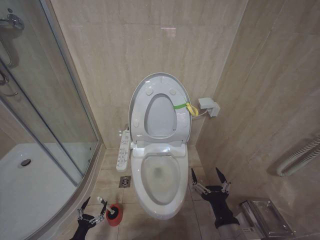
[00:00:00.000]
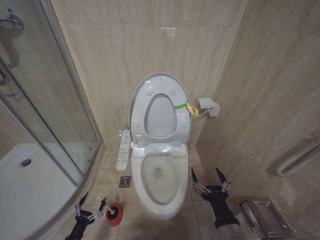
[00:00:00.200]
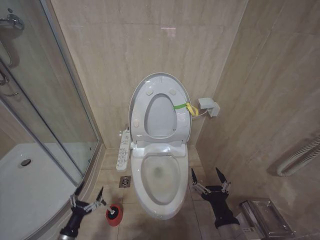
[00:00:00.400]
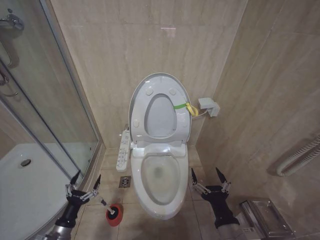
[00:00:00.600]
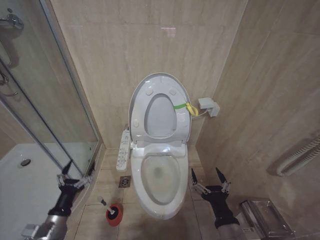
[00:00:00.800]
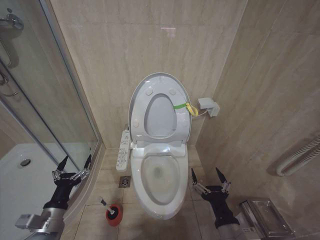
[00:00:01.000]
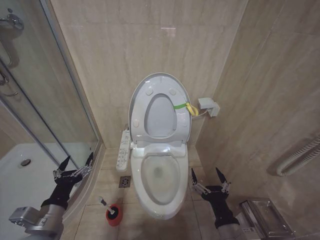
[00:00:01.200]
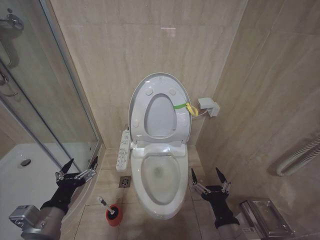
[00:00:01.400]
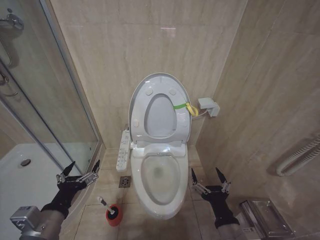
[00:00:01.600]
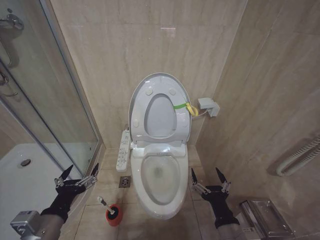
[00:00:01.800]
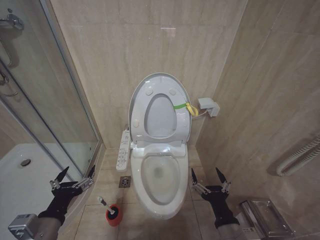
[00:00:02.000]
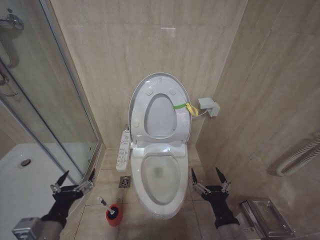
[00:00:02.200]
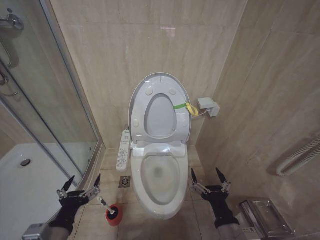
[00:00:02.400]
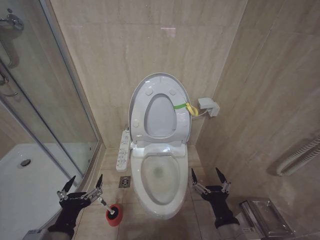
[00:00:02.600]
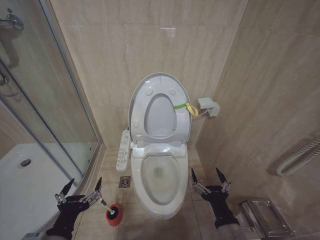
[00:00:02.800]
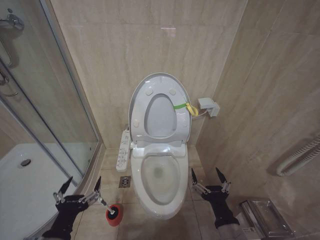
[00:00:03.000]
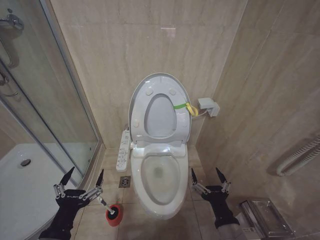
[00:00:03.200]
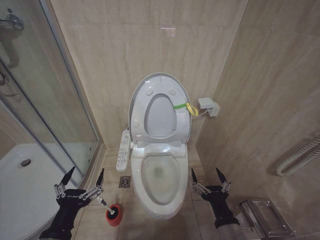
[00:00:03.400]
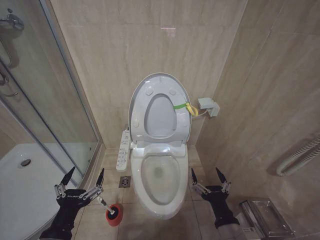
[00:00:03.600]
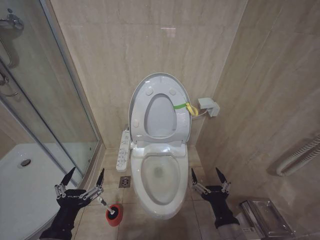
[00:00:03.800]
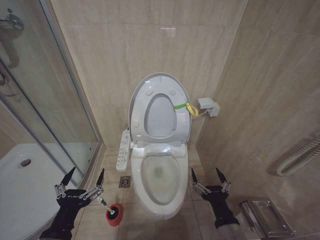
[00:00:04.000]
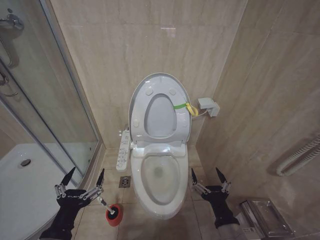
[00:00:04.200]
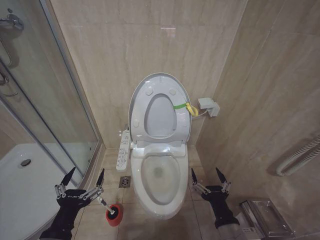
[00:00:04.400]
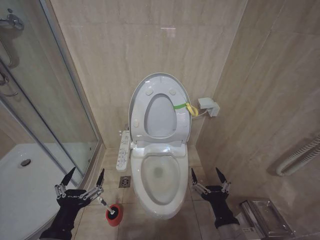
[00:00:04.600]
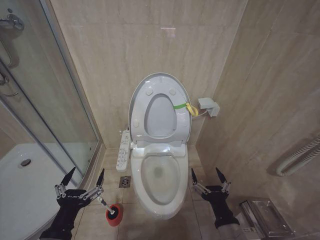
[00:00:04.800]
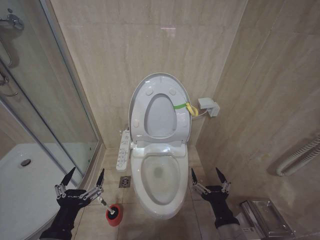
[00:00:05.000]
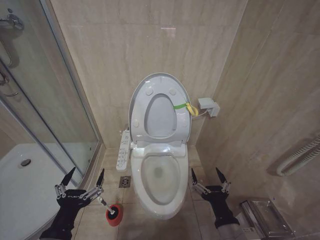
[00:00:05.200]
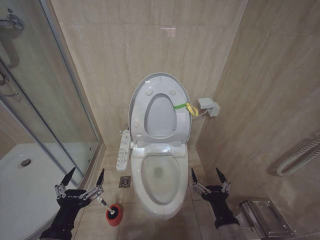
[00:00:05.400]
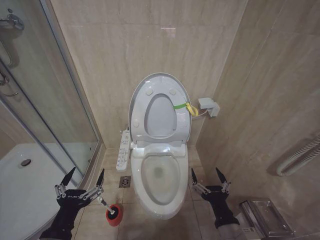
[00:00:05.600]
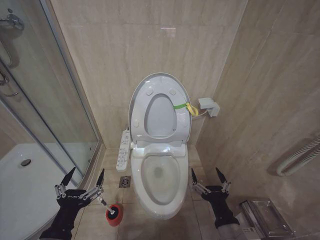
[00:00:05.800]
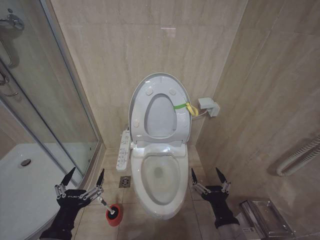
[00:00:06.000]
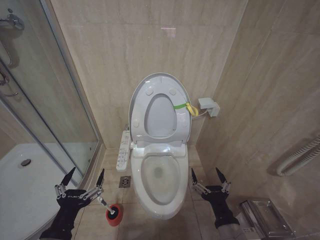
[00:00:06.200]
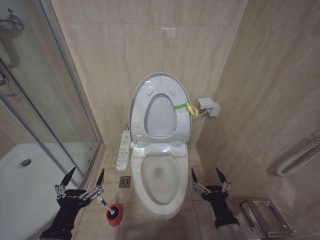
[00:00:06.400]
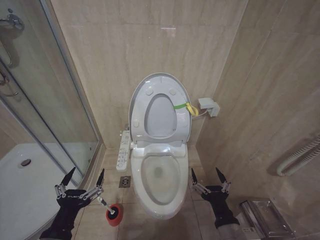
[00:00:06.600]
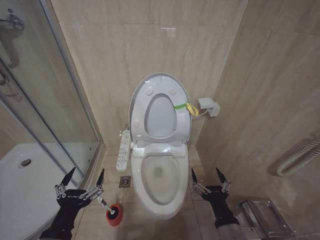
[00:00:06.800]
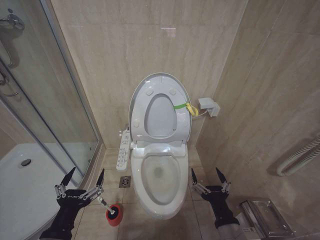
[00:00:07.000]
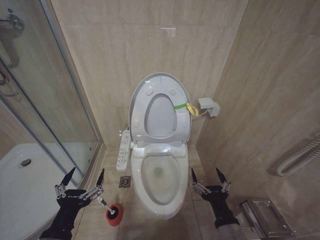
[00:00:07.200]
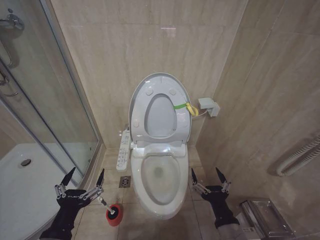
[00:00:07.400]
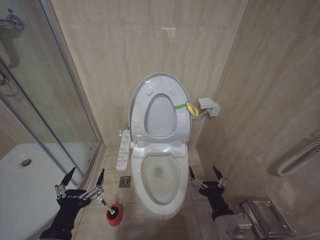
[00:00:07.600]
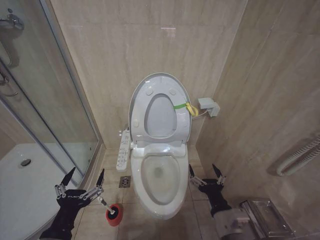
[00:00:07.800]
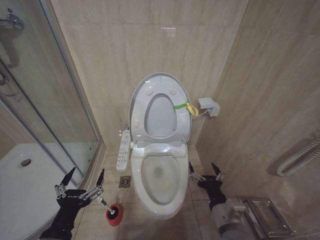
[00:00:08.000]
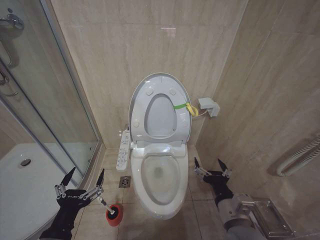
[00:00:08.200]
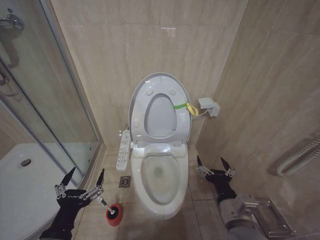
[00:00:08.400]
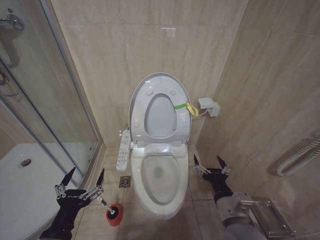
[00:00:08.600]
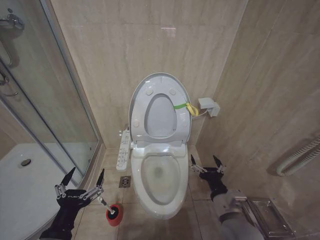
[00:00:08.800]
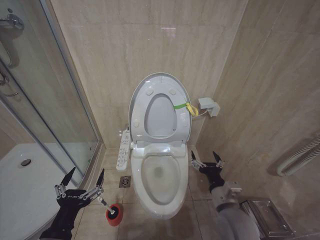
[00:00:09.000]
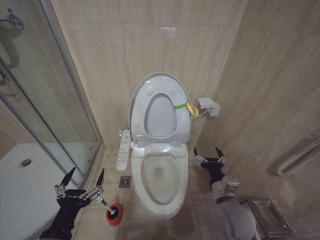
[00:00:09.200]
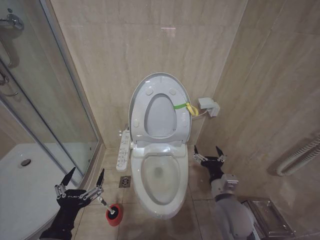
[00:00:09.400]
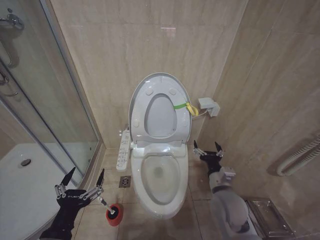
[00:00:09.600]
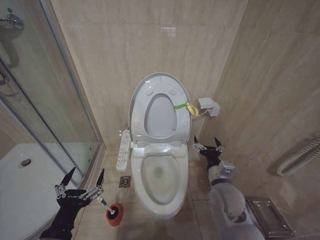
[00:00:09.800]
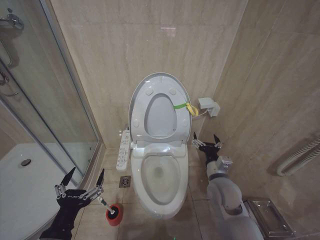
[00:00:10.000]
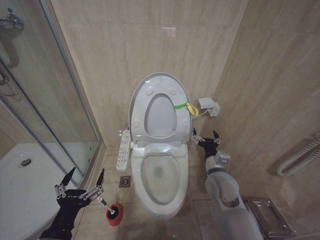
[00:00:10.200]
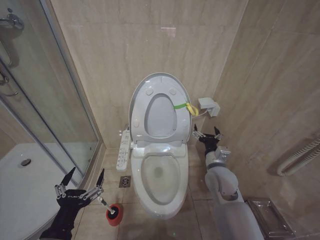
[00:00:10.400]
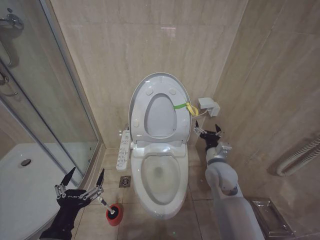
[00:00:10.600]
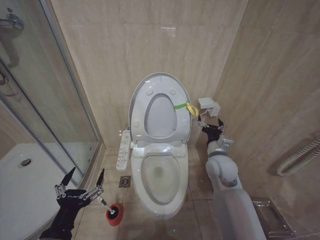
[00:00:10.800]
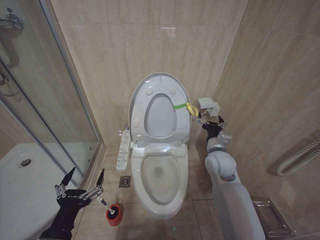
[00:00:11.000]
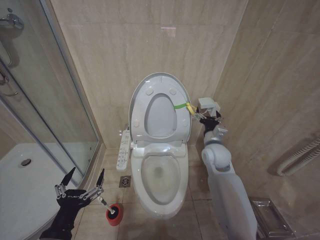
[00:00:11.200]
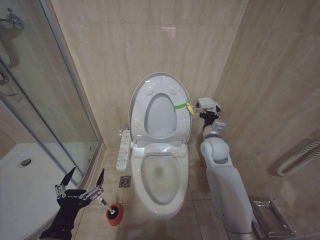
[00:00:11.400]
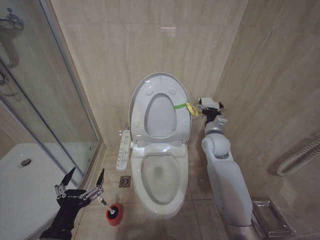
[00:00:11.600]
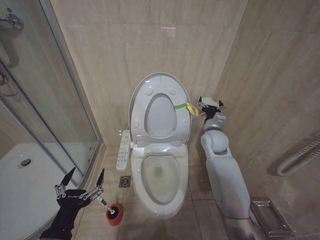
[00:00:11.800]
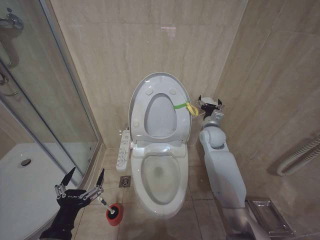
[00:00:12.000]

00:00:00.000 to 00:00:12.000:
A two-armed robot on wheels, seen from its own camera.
Task of the whole recording: Open the toilet lid, clean the toilet bowl with a toilet brush, close the toilet lid, and flush.
00:00:00.000 to 00:00:01.600: The left gripper is displaced upward by some 40 cm.
00:00:01.600 to 00:00:03.000: The left gripper moves backward, about 5 cm.
00:00:03.000 to 00:00:04.400: The grippers move only a little.
00:00:04.400 to 00:00:07.600: Neither gripper changes place.
00:00:07.600 to 00:00:09.000: The right gripper travels forward by some 5 cm.
00:00:09.000 to 00:00:10.400: The right gripper moves forward, some 15 cm.
00:00:10.400 to 00:00:12.000: The right gripper heads forward and upward, covering roughly 15 cm.

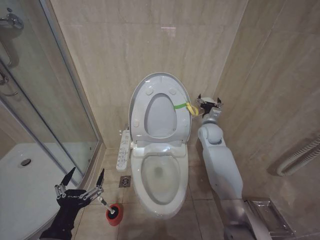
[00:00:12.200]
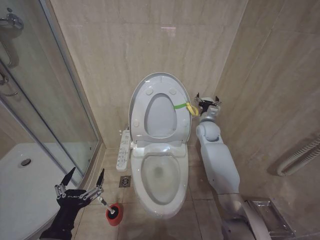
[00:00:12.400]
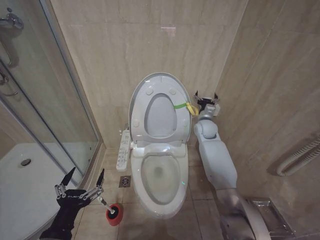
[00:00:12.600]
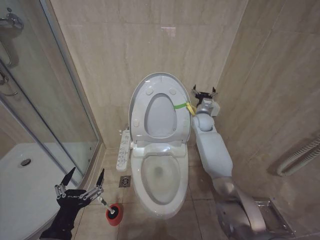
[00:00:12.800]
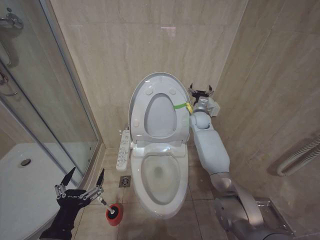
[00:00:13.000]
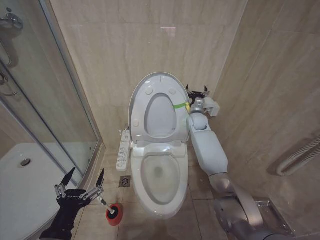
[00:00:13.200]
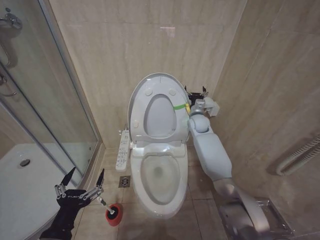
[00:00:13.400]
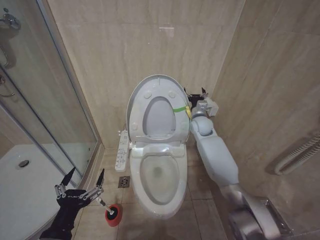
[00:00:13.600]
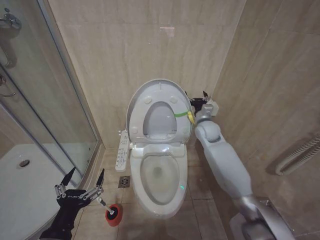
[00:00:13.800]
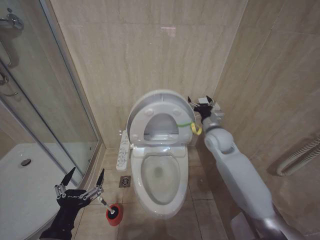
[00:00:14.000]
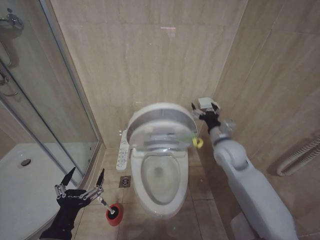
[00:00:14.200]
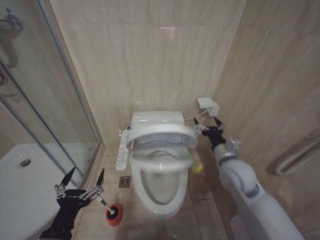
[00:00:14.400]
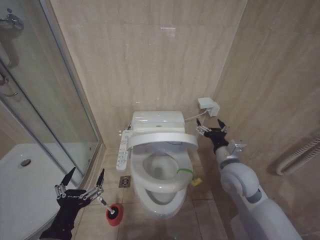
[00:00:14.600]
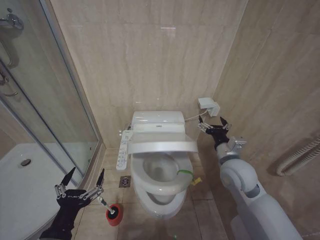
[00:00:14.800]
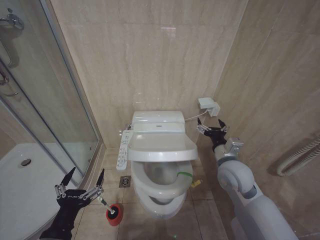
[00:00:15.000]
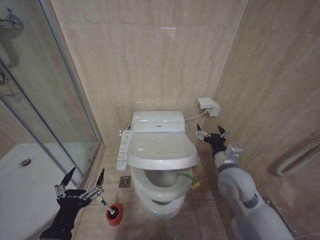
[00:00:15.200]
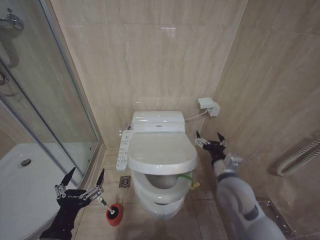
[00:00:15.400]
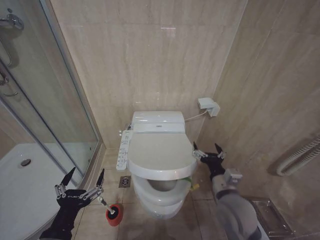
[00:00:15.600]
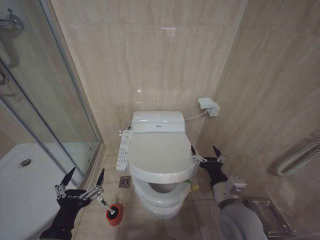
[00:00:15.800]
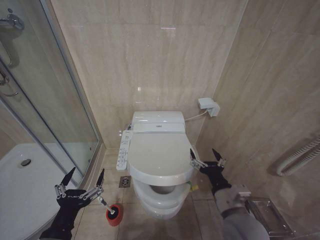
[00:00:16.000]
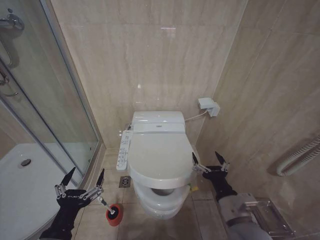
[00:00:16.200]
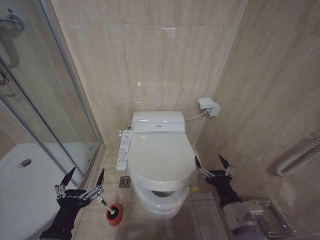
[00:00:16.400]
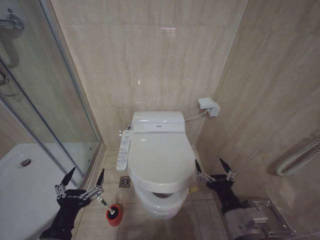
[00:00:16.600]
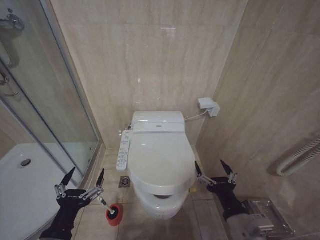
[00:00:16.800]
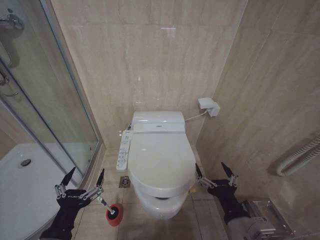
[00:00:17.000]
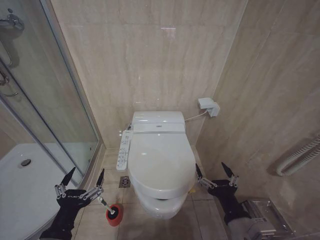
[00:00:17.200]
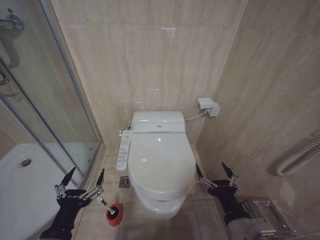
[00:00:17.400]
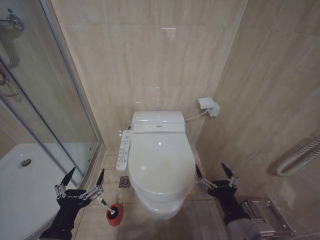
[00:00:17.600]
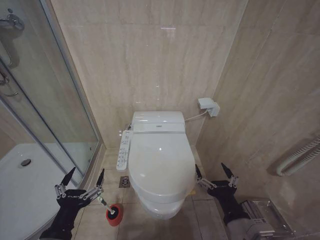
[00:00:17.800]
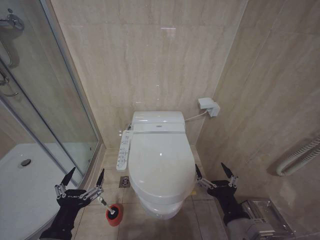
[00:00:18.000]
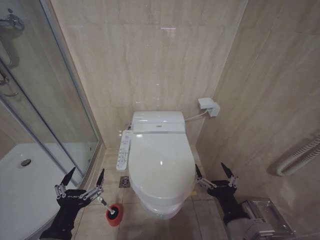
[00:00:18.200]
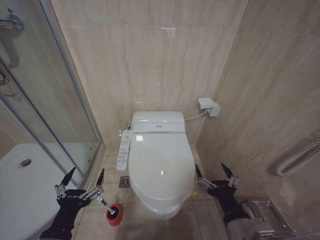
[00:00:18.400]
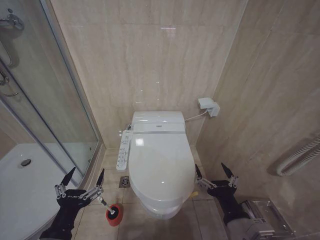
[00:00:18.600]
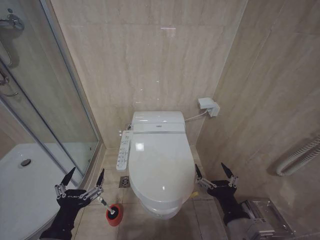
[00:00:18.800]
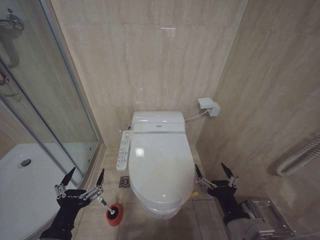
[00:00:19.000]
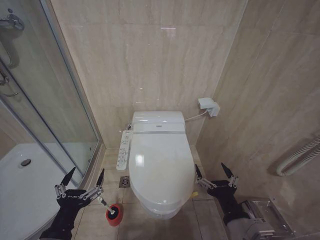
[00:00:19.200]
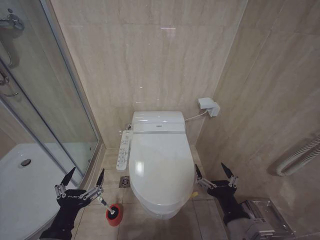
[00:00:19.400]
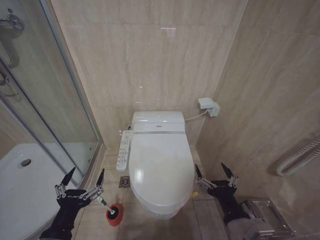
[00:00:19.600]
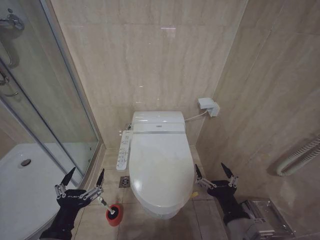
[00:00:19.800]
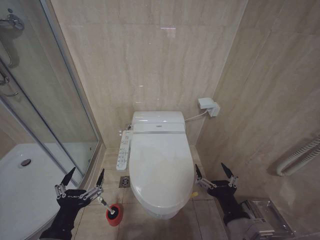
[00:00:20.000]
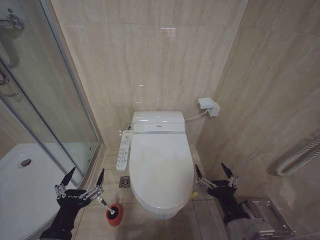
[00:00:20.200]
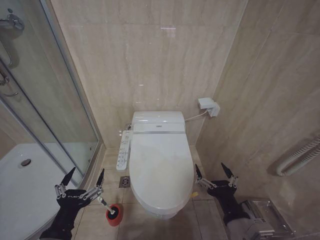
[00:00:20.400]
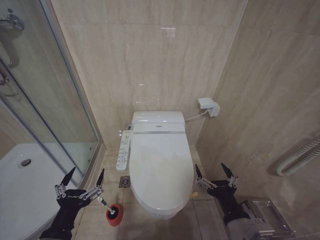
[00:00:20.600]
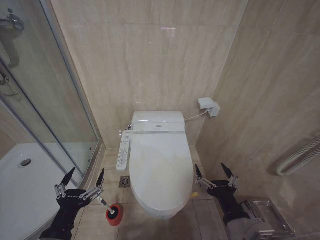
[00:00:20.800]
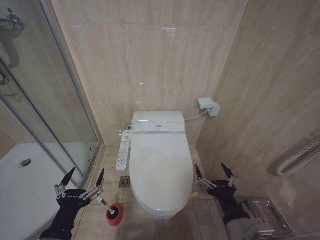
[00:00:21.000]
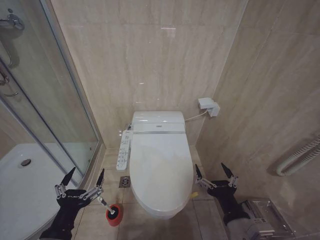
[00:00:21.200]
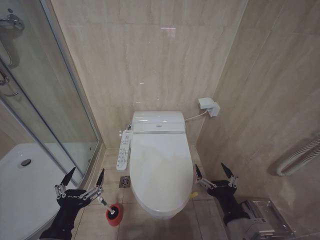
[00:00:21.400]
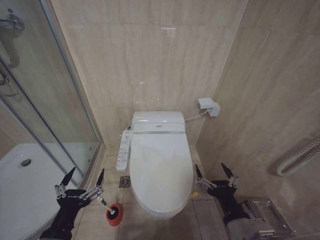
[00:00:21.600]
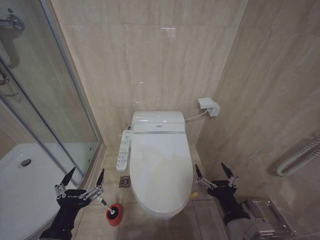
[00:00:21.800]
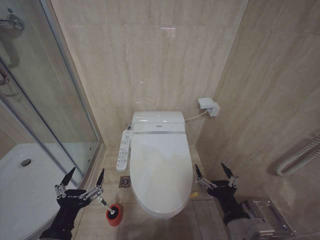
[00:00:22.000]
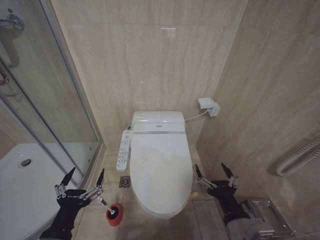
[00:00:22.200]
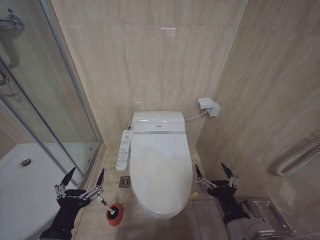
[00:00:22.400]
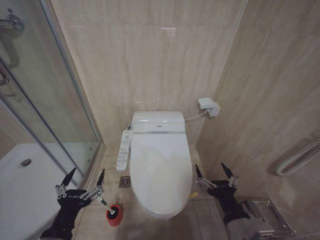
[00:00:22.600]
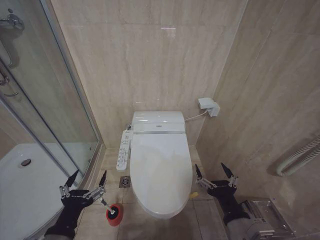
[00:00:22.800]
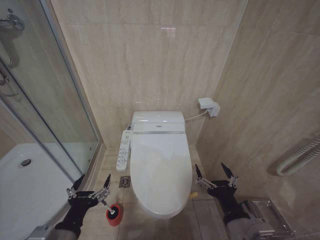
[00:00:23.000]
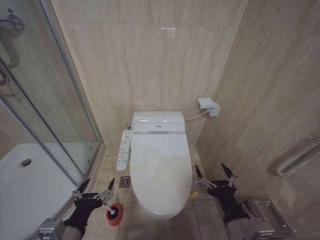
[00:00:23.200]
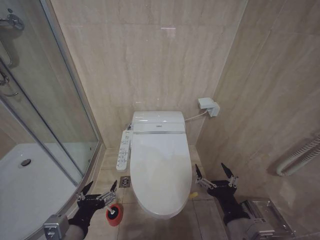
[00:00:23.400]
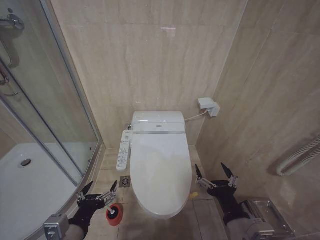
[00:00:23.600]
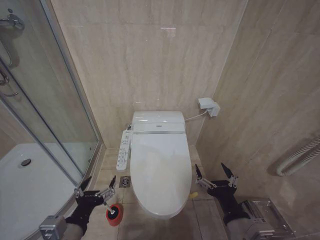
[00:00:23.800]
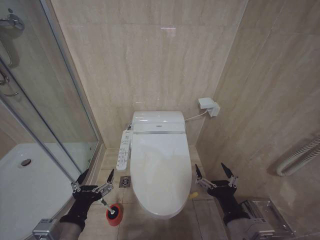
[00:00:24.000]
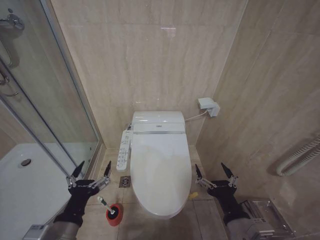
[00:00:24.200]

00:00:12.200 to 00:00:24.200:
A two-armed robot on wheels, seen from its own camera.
Task of the whole recording: Open the toilet lid, clean the toilet bowl with a toilet brush, close the toilet lid, and flush.
00:00:12.200 to 00:00:13.800: The right gripper travels forward and back again, some 10 cm each way.
00:00:13.800 to 00:00:15.200: The right gripper shifts approximately 20 cm backward.
00:00:15.200 to 00:00:16.600: The right gripper shifts about 15 cm backward.
00:00:16.600 to 00:00:18.200: The grippers make only small movements.
00:00:18.200 to 00:00:22.600: Both grippers stay about where they are.